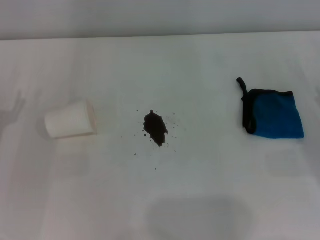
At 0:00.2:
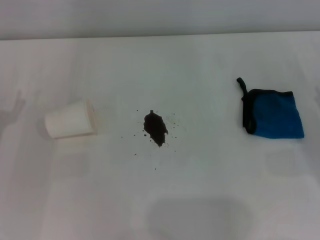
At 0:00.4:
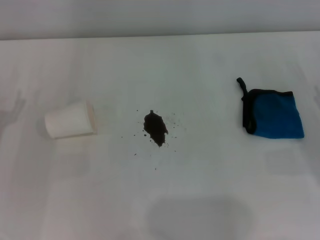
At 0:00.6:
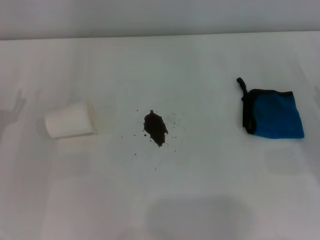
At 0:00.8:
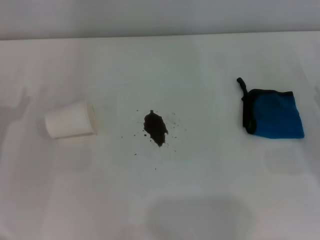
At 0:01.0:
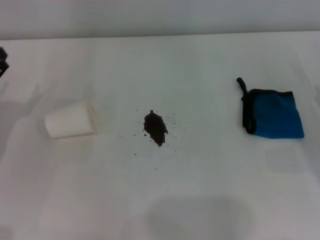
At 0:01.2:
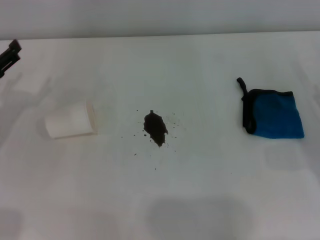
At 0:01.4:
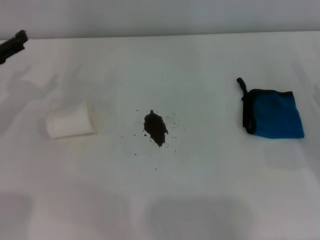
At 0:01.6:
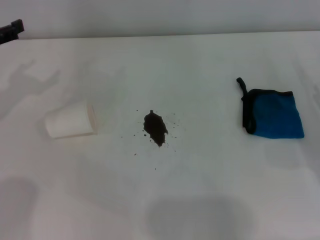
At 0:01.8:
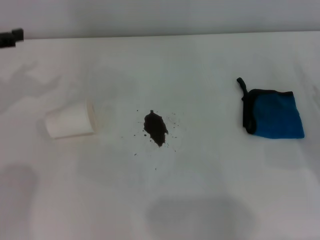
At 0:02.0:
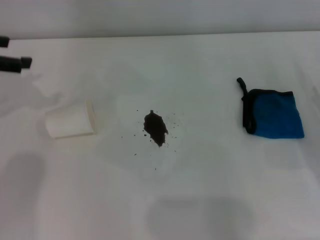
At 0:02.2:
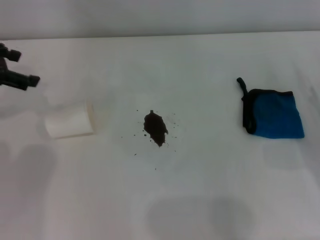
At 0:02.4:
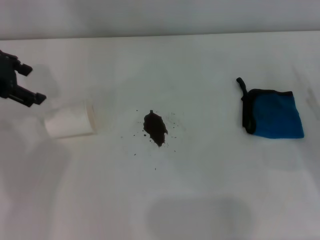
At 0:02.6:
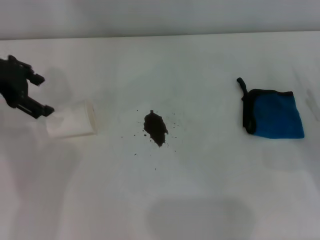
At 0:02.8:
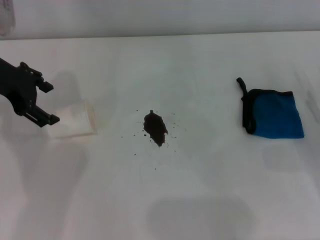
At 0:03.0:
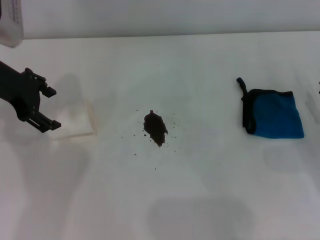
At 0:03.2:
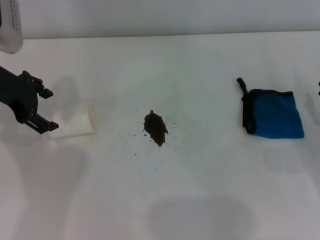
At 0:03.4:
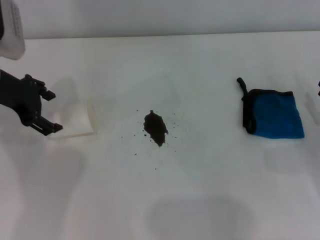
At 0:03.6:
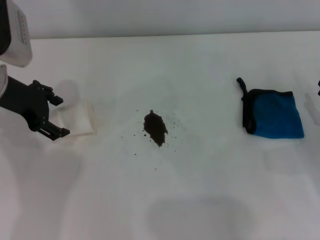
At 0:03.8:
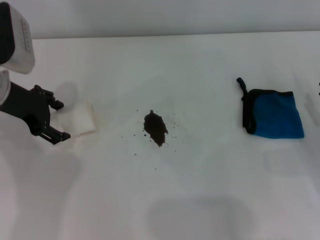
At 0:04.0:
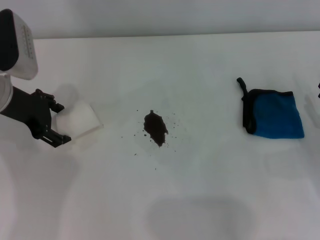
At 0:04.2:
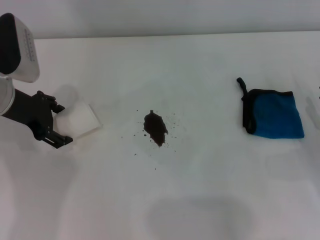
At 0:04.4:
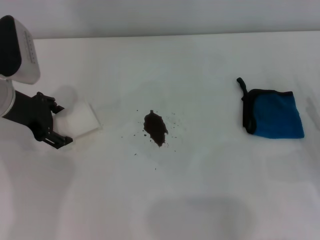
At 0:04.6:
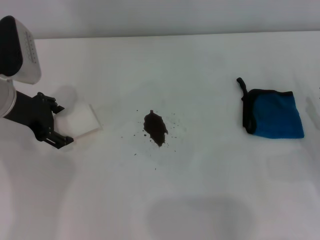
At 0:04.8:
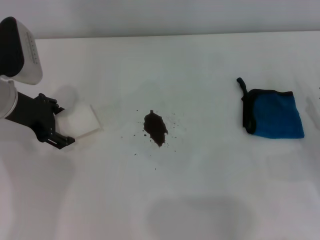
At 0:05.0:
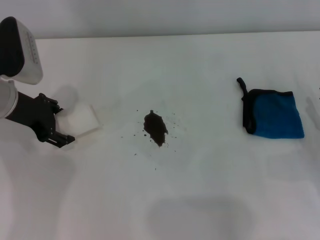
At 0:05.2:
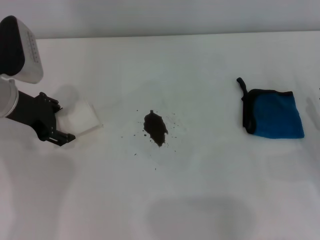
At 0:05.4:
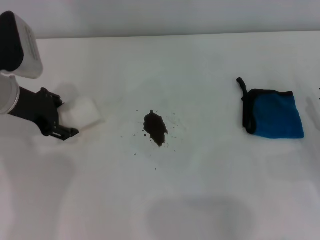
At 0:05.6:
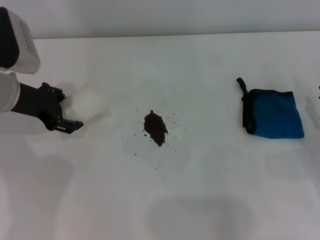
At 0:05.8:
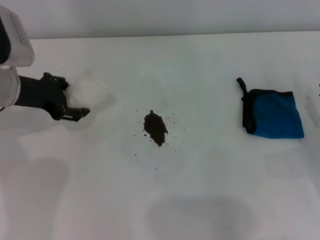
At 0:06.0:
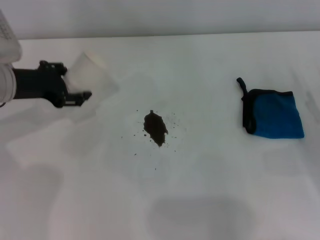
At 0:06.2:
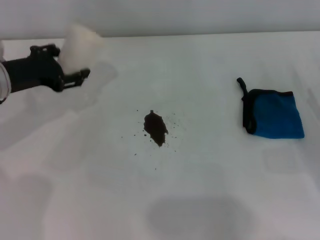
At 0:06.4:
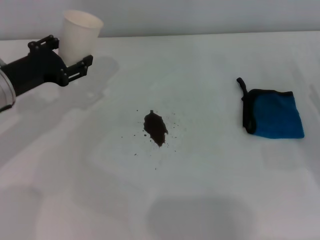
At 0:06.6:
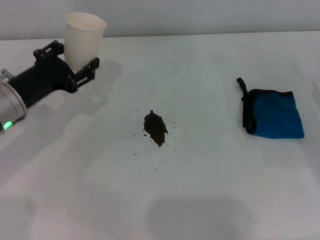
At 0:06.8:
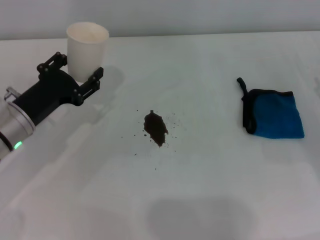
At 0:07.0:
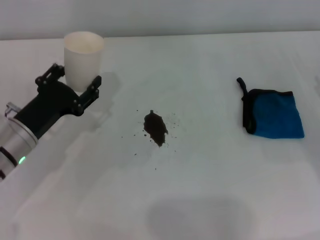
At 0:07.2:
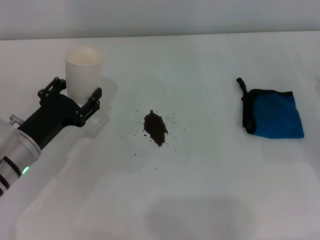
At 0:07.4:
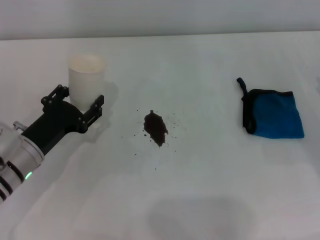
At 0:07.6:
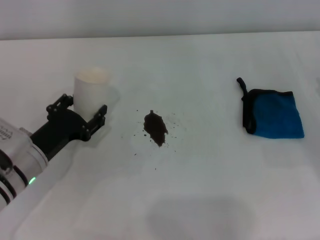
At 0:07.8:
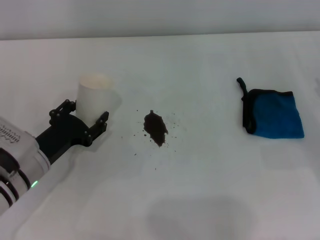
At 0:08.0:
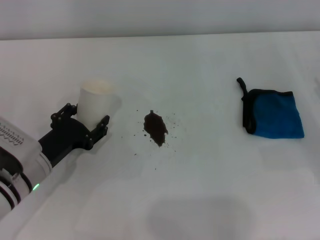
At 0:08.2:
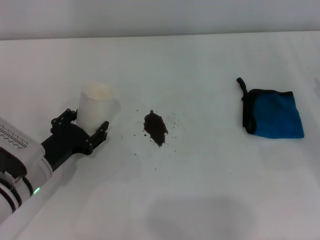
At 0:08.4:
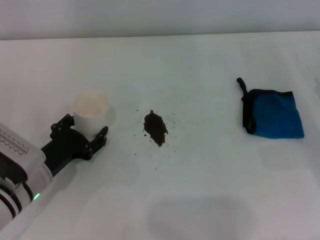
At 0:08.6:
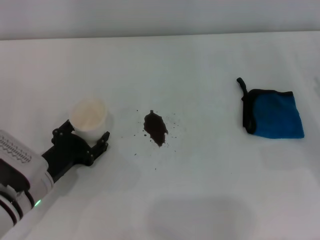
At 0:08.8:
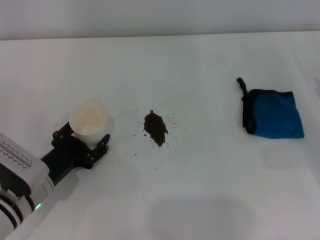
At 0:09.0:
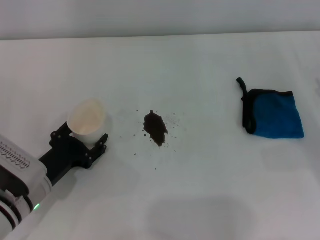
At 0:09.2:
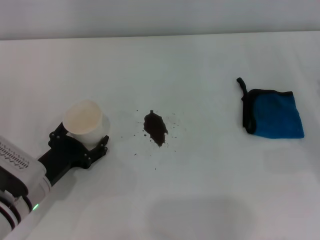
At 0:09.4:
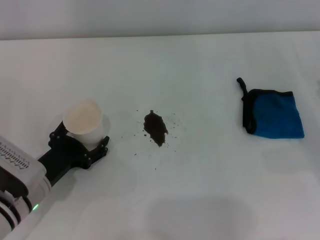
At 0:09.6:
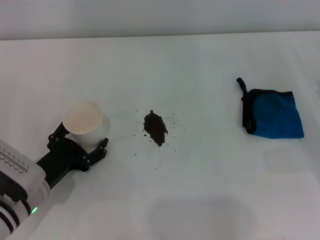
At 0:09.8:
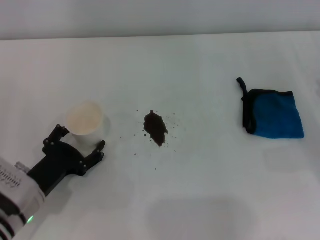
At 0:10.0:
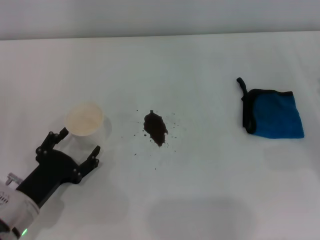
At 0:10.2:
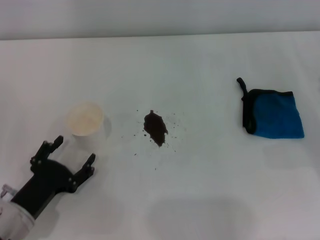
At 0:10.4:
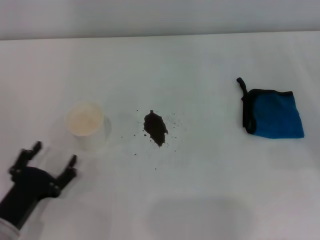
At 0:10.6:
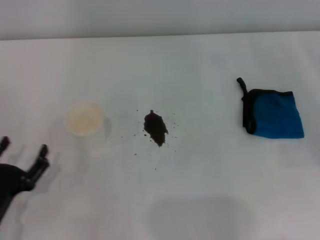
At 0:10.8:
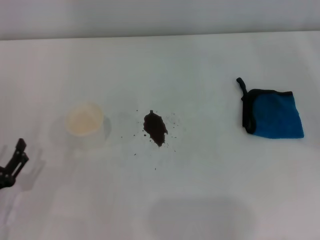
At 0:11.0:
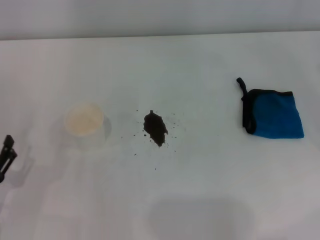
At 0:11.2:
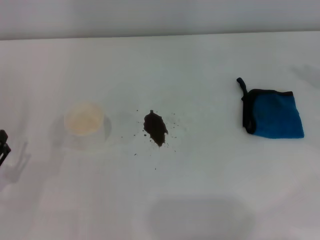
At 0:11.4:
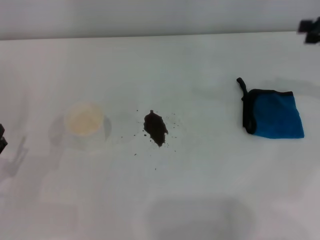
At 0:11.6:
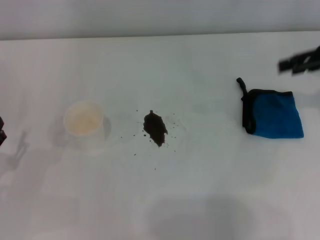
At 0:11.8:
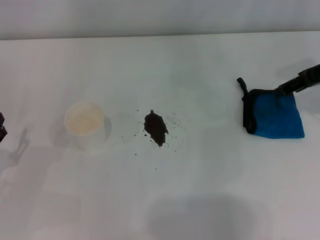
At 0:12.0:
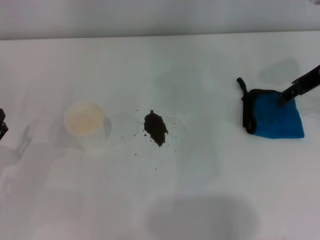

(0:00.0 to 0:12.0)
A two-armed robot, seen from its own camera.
Step, 0:00.0 - 0:05.2: Grasp the paper cup with the left gripper.
Step, 0:05.4 - 0:09.2: Stand the paper cup upright with the left gripper.
0:01.6 - 0:03.0: The left gripper travels to the right by some 10 cm.
0:03.0 - 0:04.4: The left gripper is displaced downward by approximately 5 cm.
0:04.4 - 0:06.0: The left gripper closes up.
0:06.0 - 0:07.6: The left gripper shifts approximately 15 cm backward and downward.
0:07.6 - 0:09.0: The grippers move only a little.
0:09.0 - 0:10.4: The left gripper travels backward by approximately 5 cm, and opens its fingers.
0:10.4 - 0:12.0: The left gripper moves to the left, approximately 5 cm. The right gripper heads upward, forward and to the left, covering some 20 cm.

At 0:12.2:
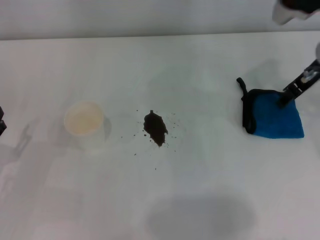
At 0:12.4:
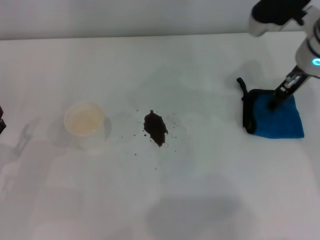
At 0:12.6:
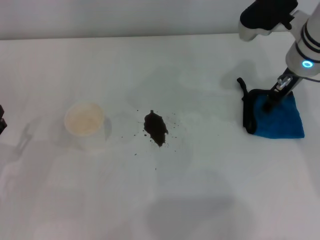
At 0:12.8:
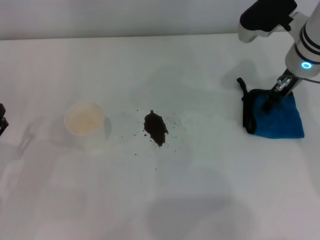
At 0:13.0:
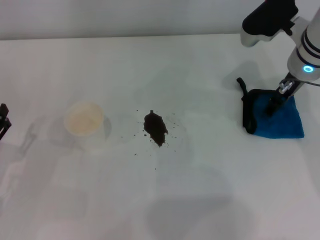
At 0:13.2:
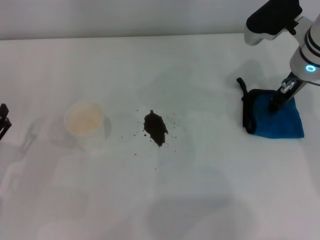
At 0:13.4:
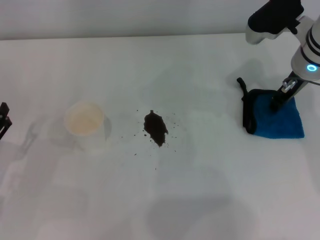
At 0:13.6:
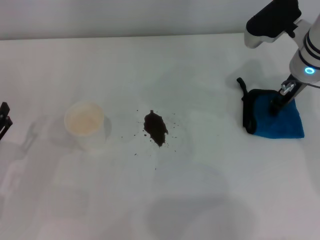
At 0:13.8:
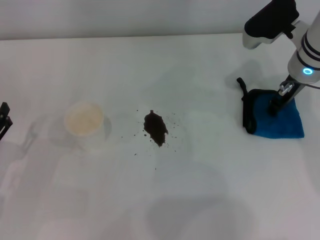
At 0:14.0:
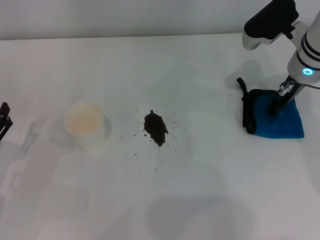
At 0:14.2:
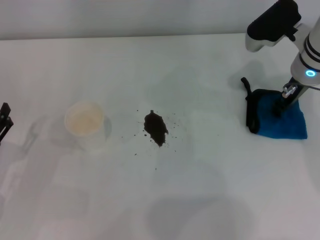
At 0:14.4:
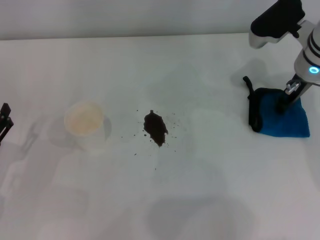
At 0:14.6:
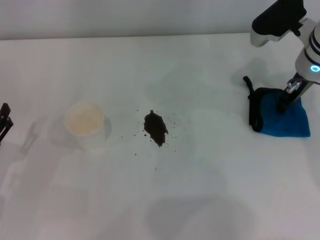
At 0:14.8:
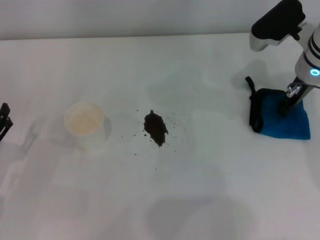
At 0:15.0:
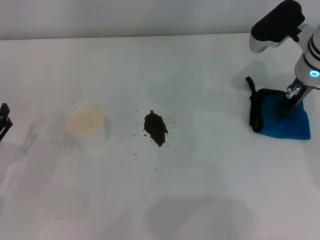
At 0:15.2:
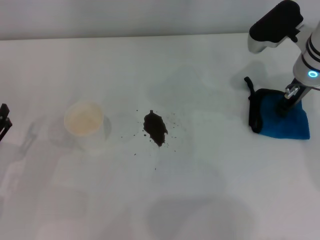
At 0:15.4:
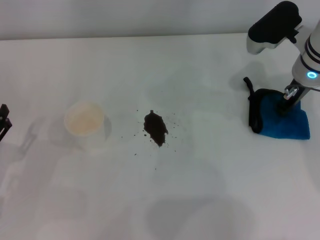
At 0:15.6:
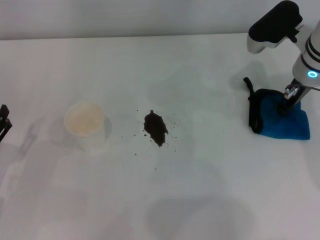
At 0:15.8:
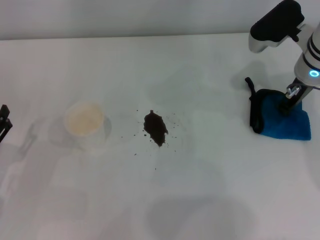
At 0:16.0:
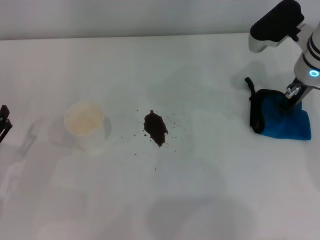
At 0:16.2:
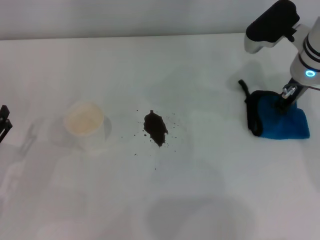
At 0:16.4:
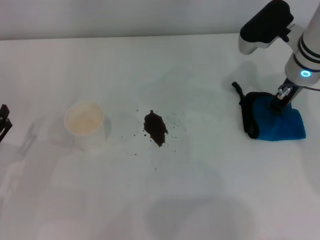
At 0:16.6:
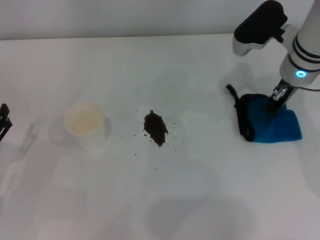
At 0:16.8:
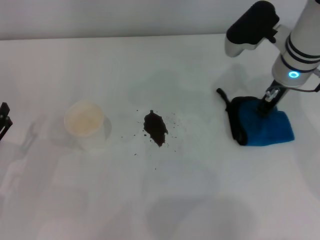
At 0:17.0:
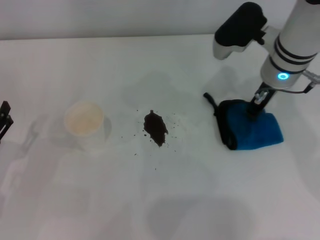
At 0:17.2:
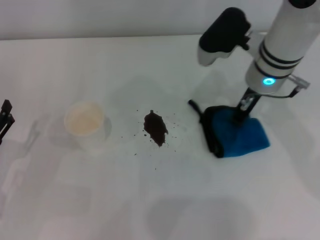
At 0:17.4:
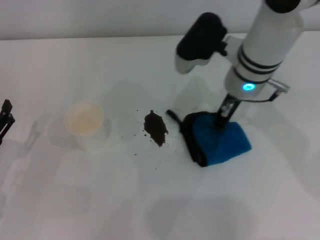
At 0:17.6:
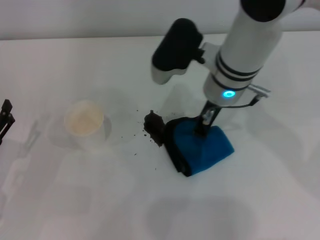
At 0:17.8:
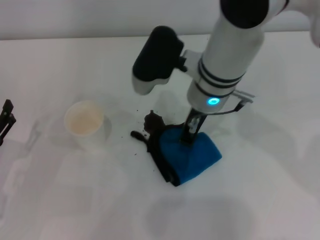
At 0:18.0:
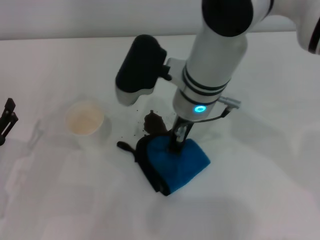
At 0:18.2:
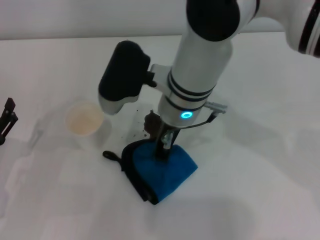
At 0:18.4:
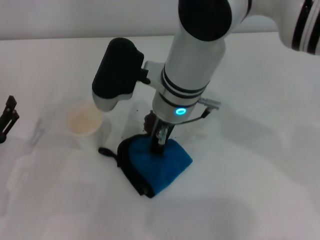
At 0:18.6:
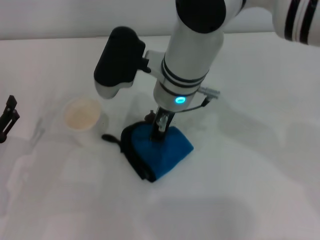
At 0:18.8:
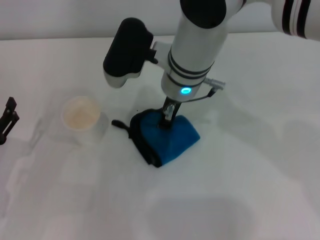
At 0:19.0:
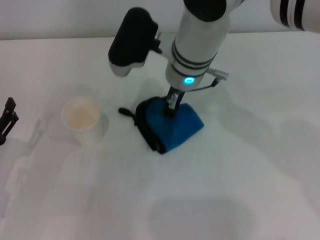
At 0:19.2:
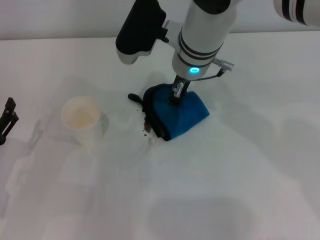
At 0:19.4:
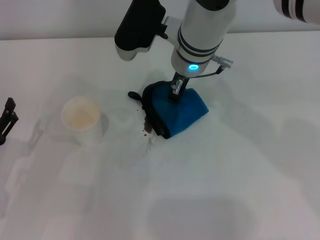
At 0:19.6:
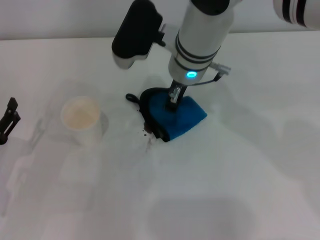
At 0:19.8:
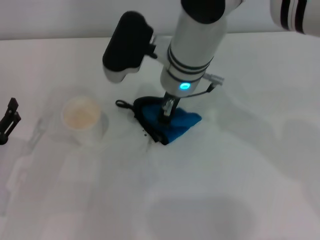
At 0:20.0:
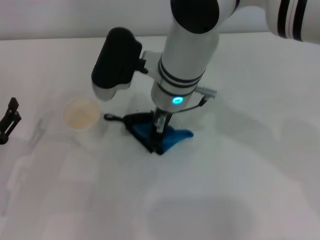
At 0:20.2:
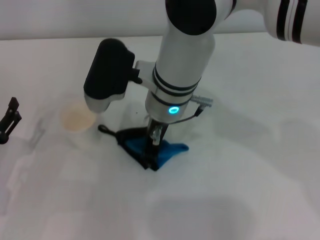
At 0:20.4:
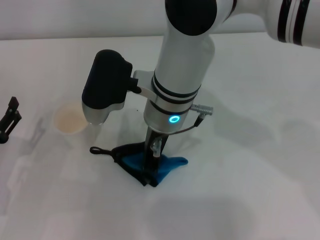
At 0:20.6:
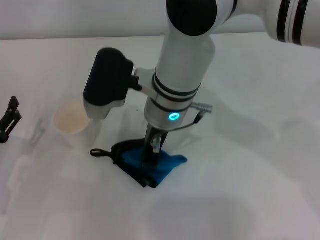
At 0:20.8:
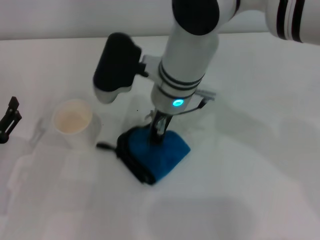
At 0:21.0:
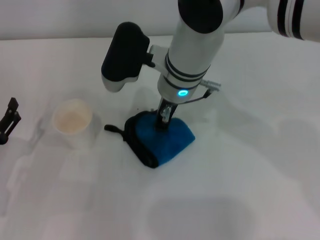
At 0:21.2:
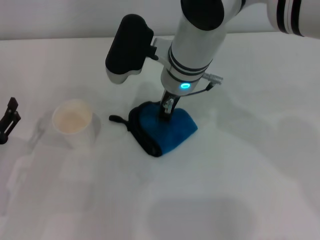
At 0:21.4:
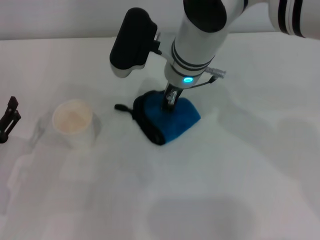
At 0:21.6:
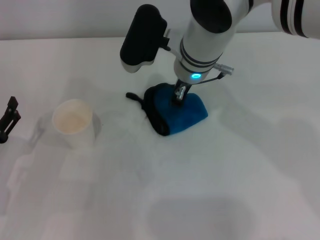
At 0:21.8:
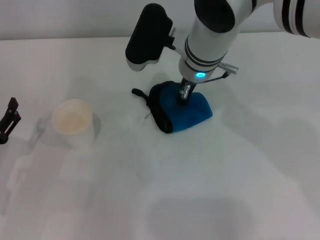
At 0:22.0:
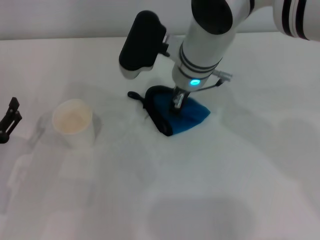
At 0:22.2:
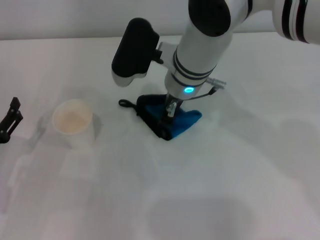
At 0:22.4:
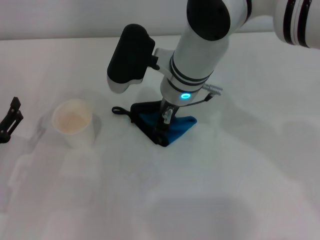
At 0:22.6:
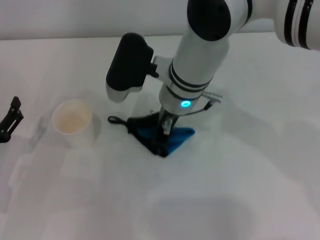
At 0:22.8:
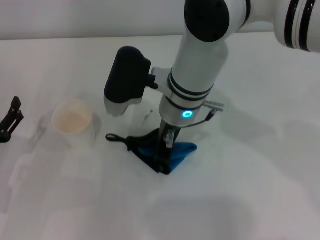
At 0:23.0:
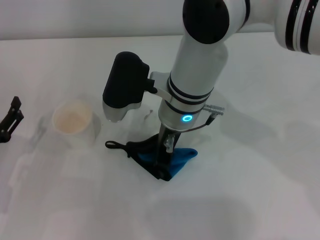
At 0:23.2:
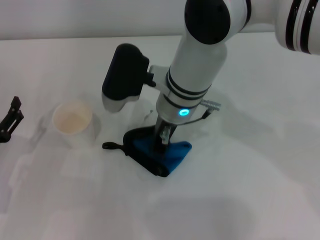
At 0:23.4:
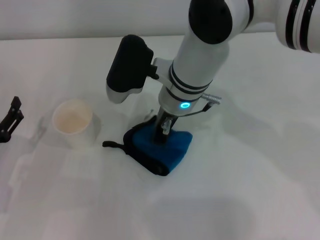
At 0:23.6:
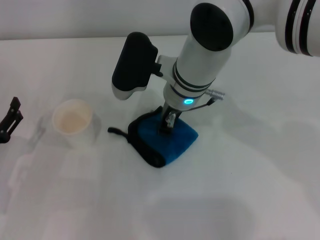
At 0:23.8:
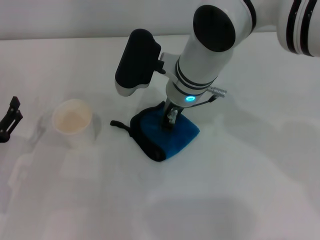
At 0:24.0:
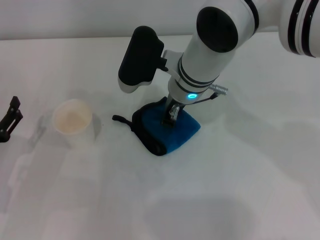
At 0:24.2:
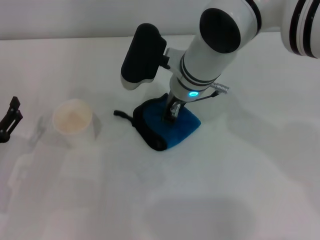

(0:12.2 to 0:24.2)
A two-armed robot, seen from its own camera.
Step, 0:12.2 - 0:16.4: Grasp the rag with the right gripper.
0:12.2 - 0:13.8: The right gripper shifts by roughly 5 cm, and closes.
0:13.8 - 0:15.2: Neither gripper changes place.
0:15.2 - 0:16.6: There are only small adjustments of the grippers.
0:16.6 - 0:18.2: The right gripper travels to the left by some 20 cm.
0:19.8 - 0:24.2: The grippers move only a little.
